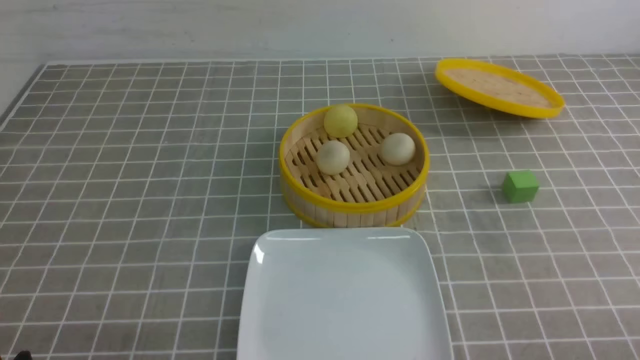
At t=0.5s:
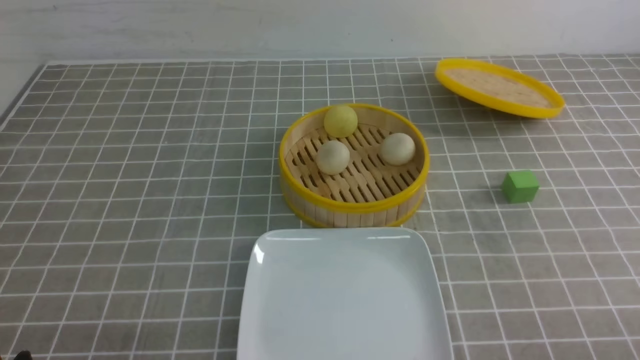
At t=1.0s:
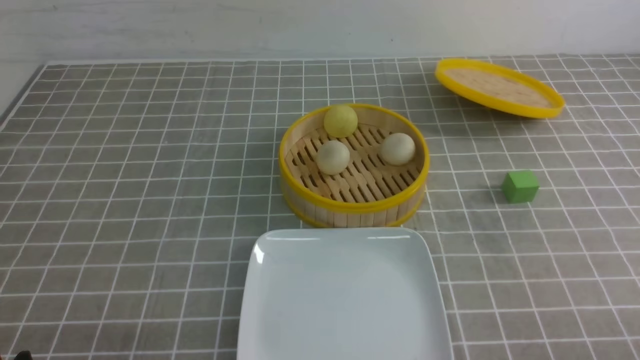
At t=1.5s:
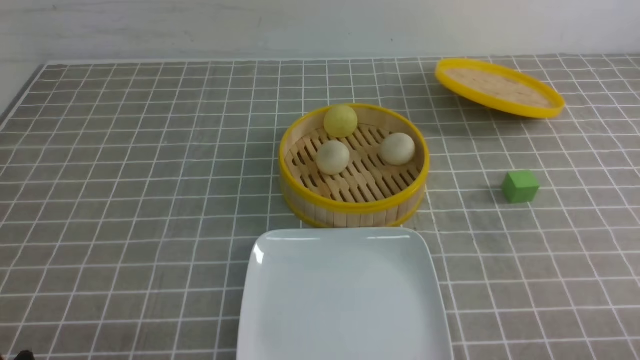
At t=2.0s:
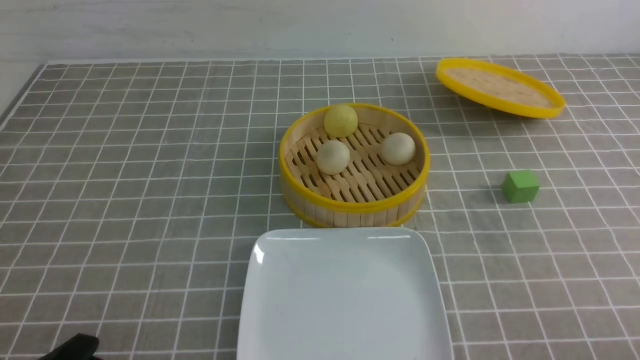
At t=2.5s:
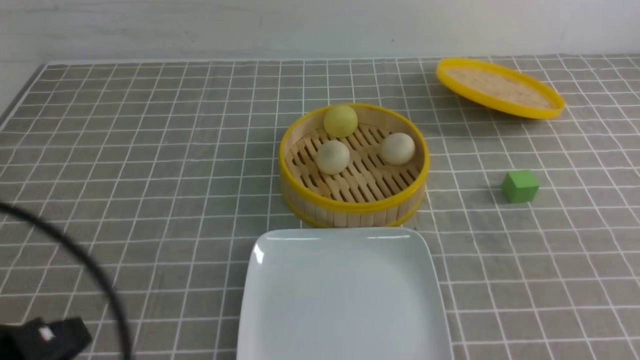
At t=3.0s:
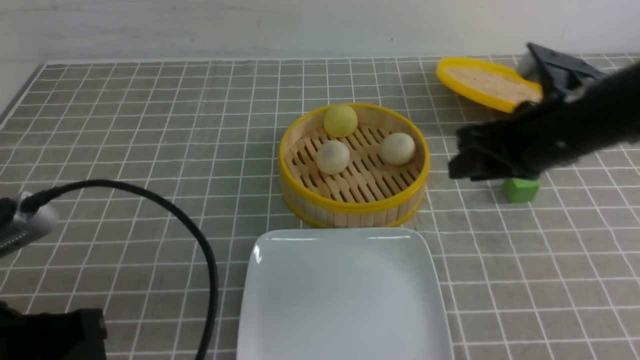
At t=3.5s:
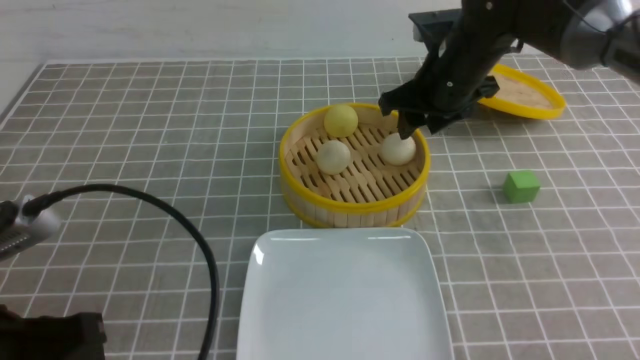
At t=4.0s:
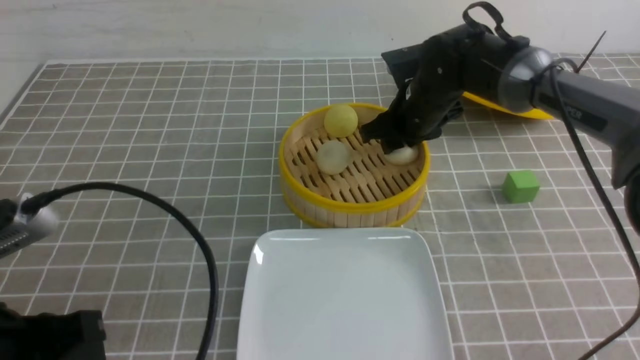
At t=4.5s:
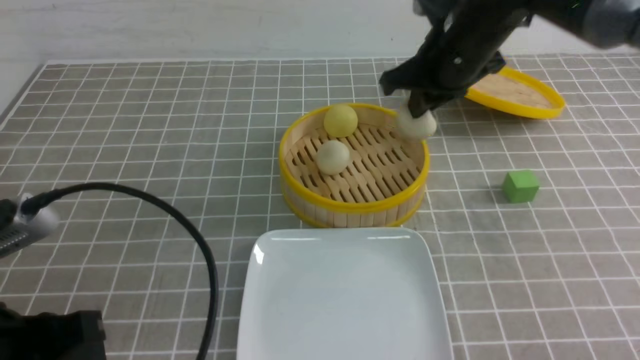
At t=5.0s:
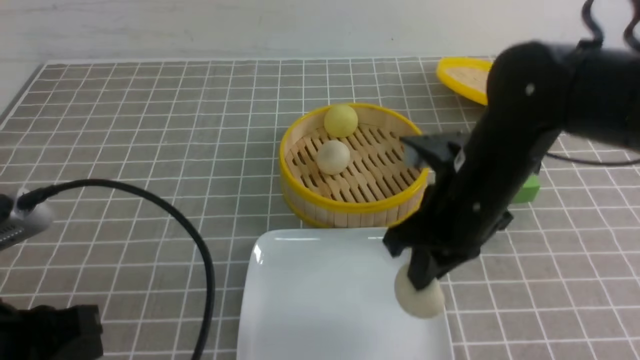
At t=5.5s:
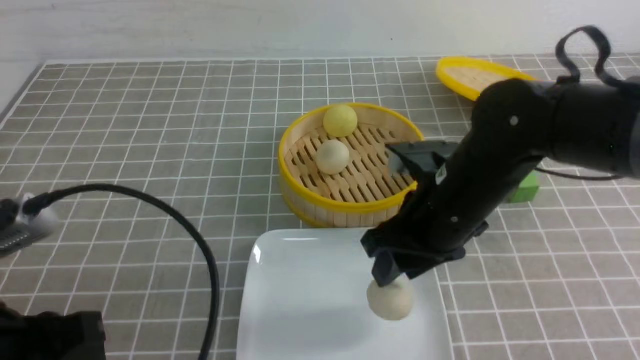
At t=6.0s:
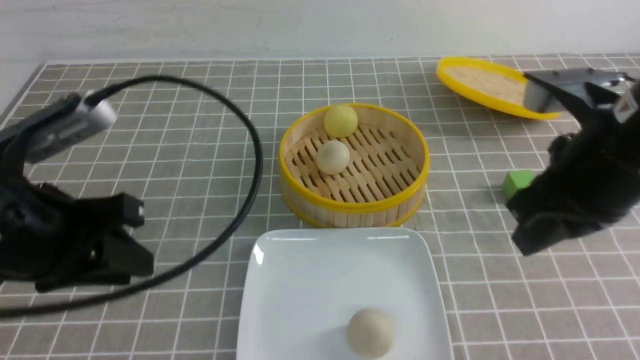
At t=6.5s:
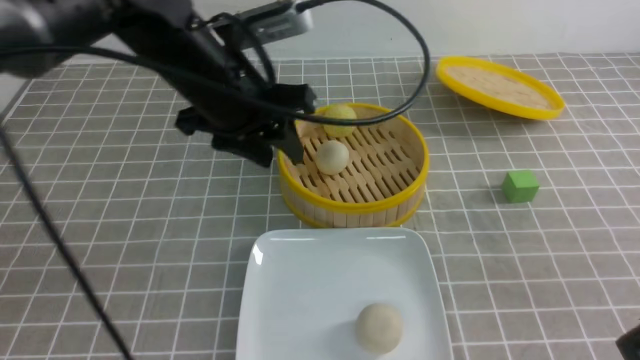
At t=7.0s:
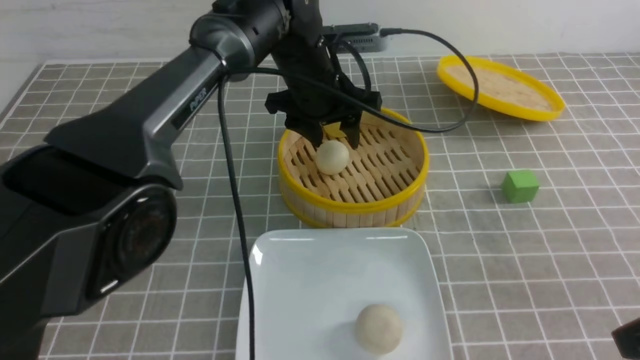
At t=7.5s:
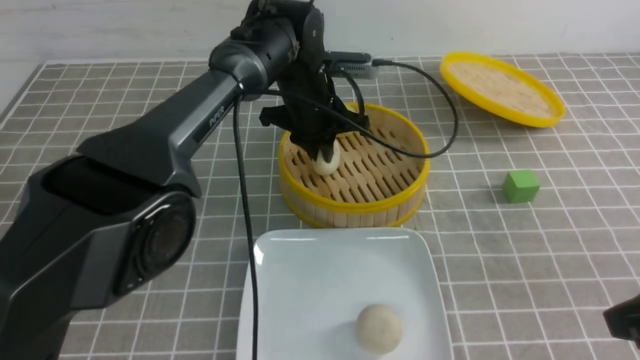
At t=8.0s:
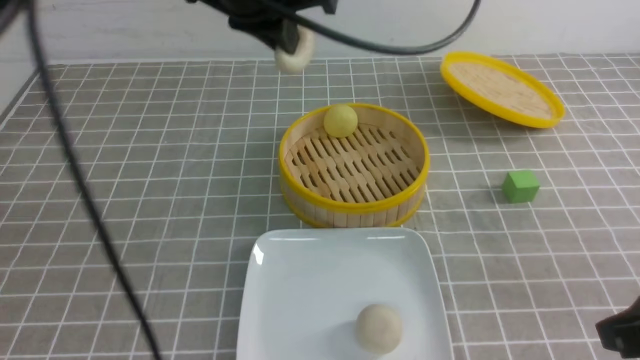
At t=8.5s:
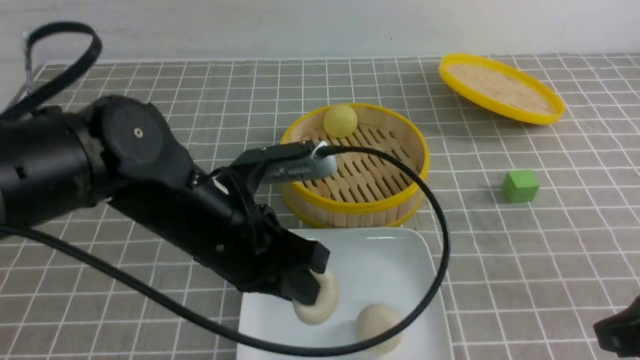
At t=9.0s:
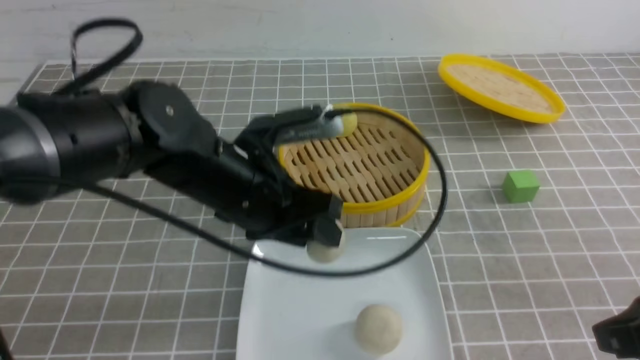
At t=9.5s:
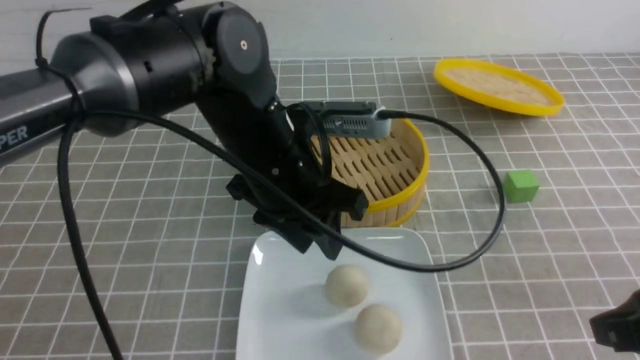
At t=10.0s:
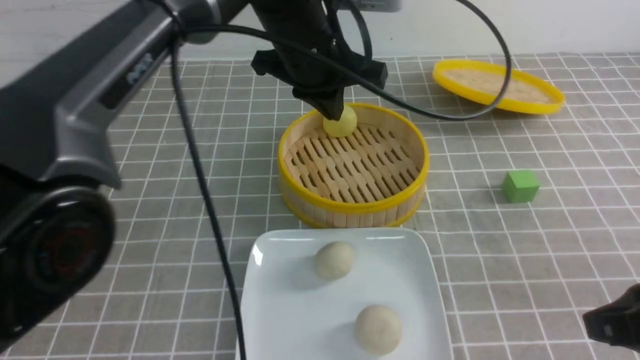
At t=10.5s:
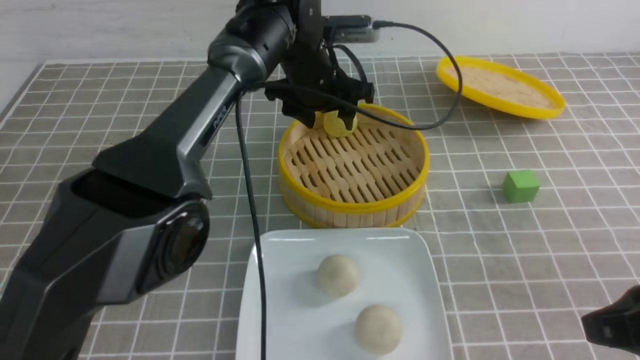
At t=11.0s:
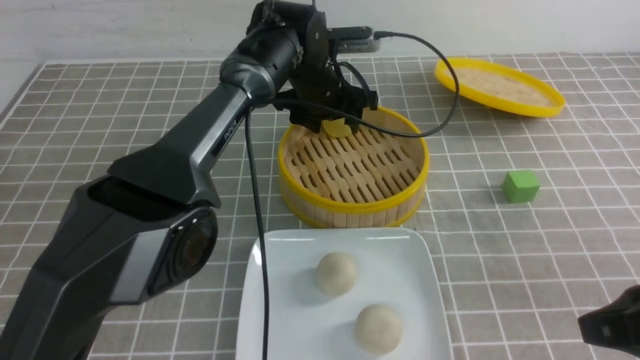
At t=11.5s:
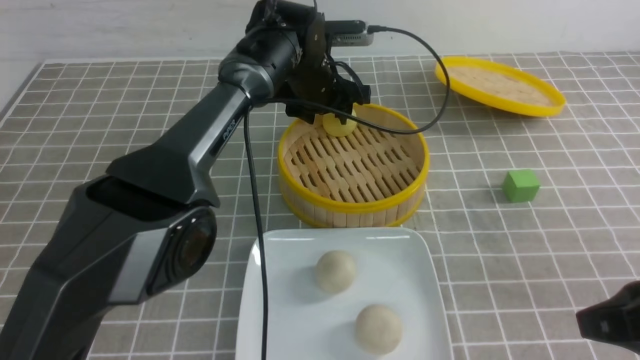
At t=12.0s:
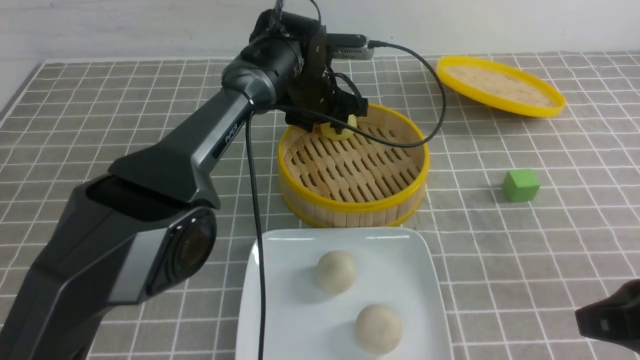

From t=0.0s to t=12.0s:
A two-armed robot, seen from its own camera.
Step, from t=0.0s to t=4.0s: use the right arm to grab the steamed stuffed bun that is closest to it.
Step, from t=4.5s to t=5.0s: use the right arm to put the steamed stuffed bun into the plate.
Step, from t=6.0s to t=7.5s: use the left arm to grab the steamed stuffed bun that is closest to it.
Step, from t=8.0s to t=9.0s: use the left arm to put the steamed stuffed bun into the plate.
From t=2.0s to t=4.0s: The right gripper moves forward and to the left, about 50 cm, and closes, then opens again, while the left gripper moves upward and forward, approximately 10 cm.
From t=4.0s to t=6.0s: The right gripper travels backward and upward by some 25 cm, and closes its fingers. Meanwhile the left gripper heads forward, covering approximately 10 cm.
From t=6.0s to t=8.0s: The right gripper travels backward and to the right by about 10 cm. The left gripper is displaced forward, to the right and upward by approximately 20 cm, and closes.
From t=8.0s to t=10.0s: The left gripper moves downward, forward and to the right, about 10 cm, and opens and closes again.
From t=10.0s to t=12.0s: The left gripper moves downward and forward, approximately 15 cm, and opens.

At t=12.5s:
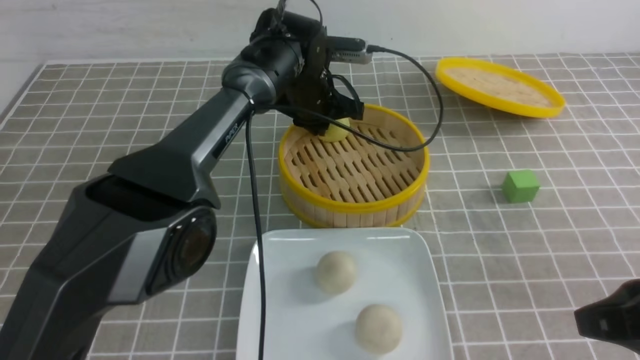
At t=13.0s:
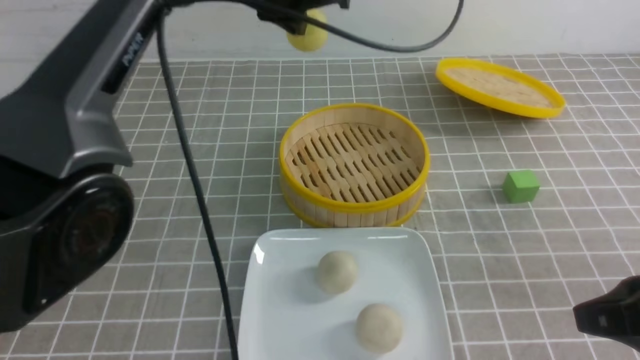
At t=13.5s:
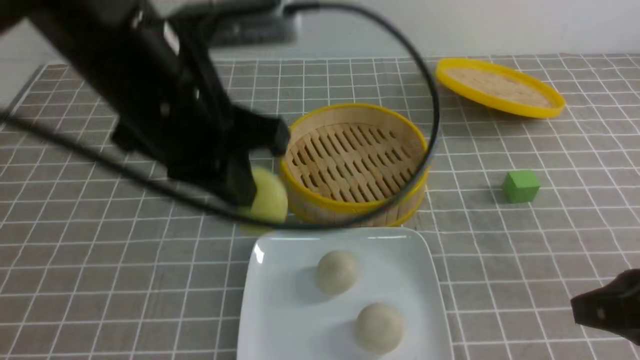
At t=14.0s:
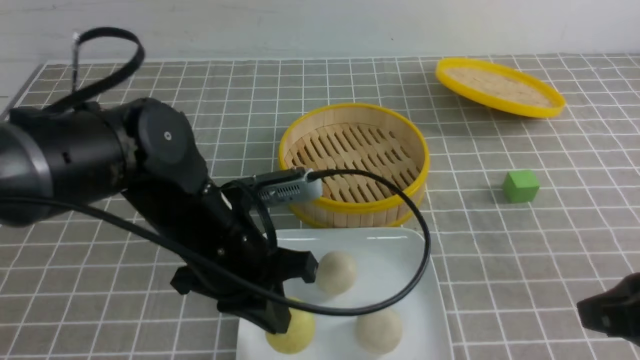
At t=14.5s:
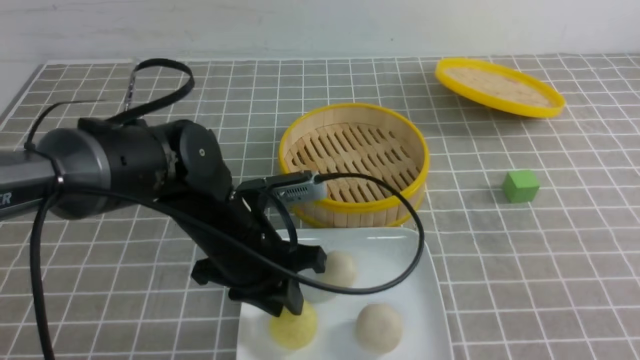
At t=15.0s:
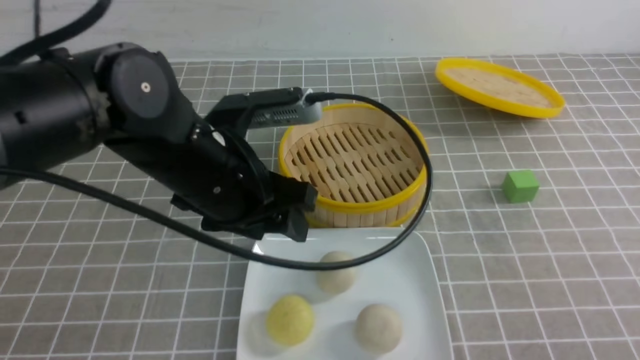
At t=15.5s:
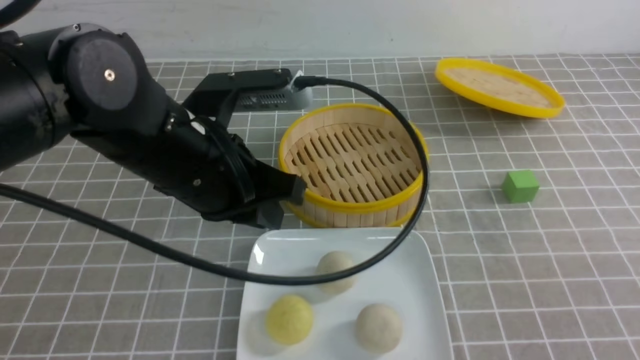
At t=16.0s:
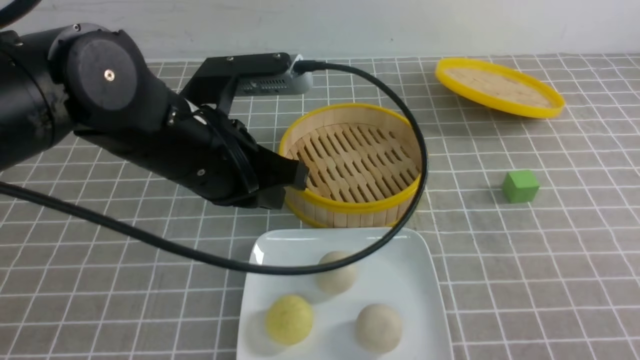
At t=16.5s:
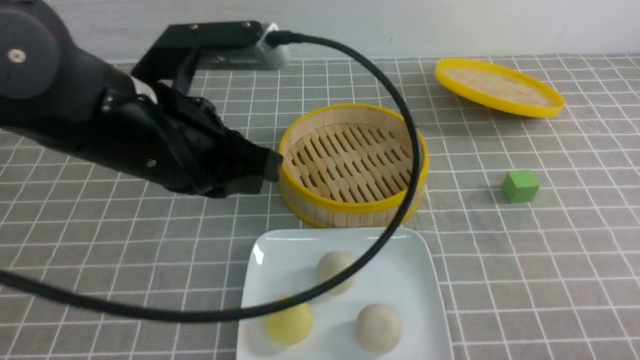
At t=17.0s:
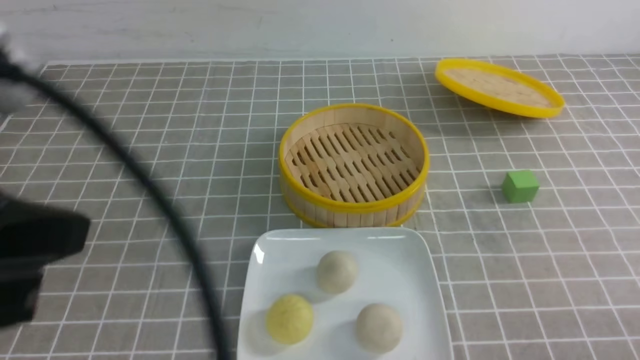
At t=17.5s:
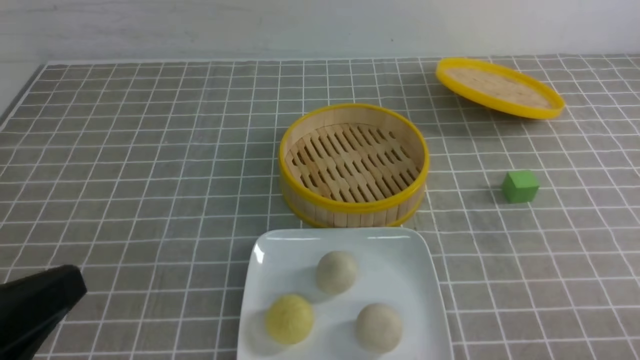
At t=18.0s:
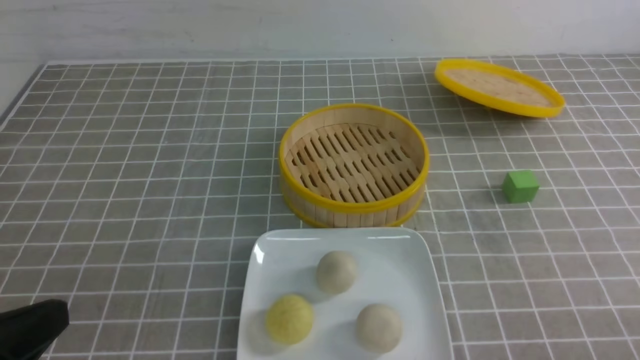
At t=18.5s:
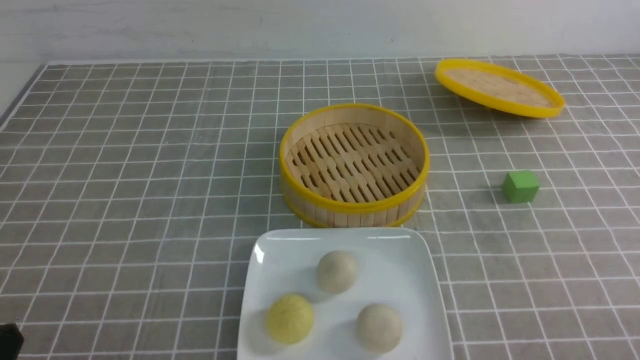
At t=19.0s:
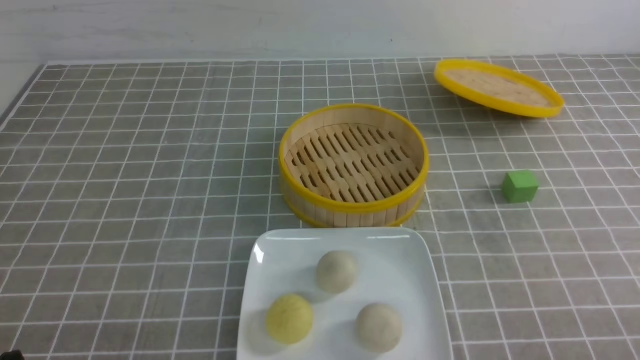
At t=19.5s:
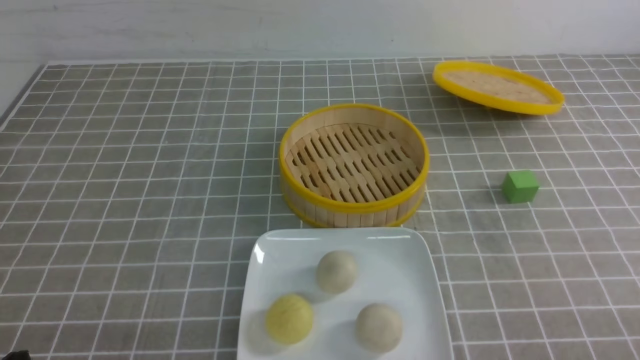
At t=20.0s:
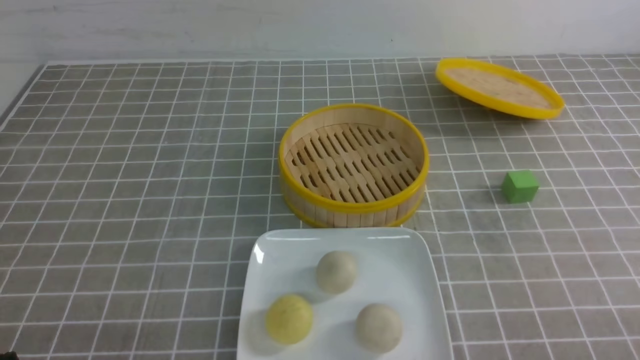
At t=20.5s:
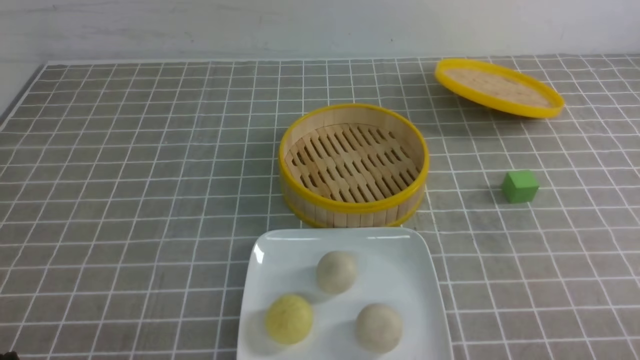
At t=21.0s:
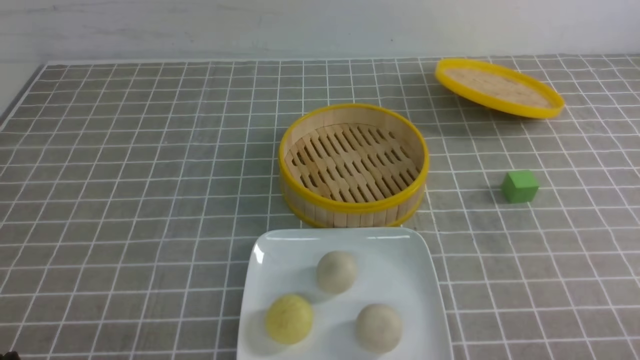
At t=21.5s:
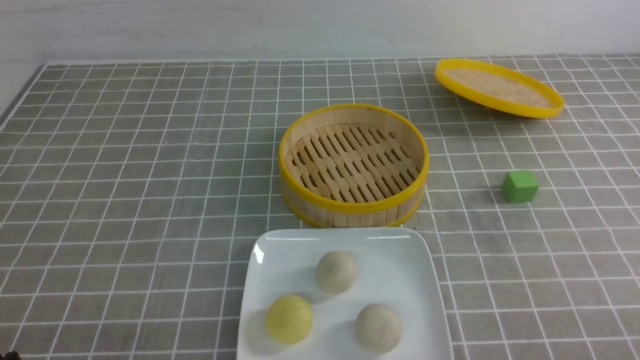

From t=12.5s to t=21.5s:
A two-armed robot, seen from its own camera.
Step, from t=13.0s to t=14.5s: use the left arm to put the steamed stuffed bun into the plate.
From t=12.5s to t=14.5s: The left gripper shifts some 20 cm backward, while the right gripper goes approximately 10 cm backward.
From t=14.5s to t=17.0s: The left gripper shifts roughly 30 cm upward, backward and to the left, and closes up. The right gripper moves downward, about 15 cm.
From t=17.0s to t=19.5s: The left gripper moves downward, about 20 cm.
From t=19.5s to t=21.5s: The two grippers keep their place.
